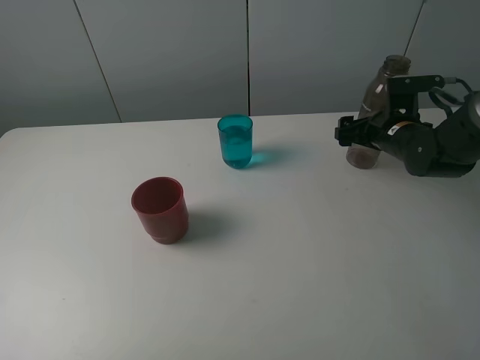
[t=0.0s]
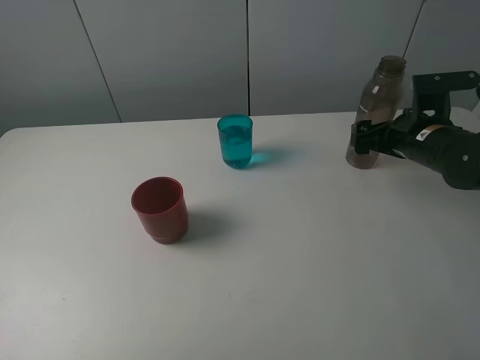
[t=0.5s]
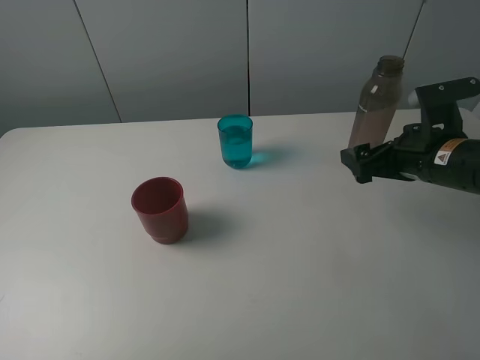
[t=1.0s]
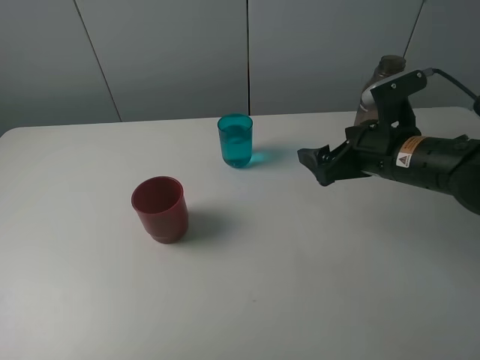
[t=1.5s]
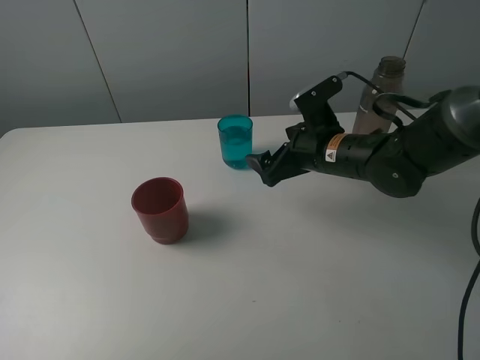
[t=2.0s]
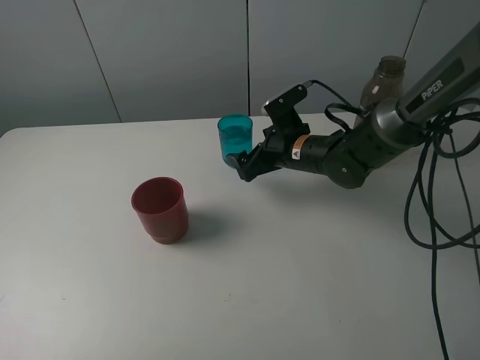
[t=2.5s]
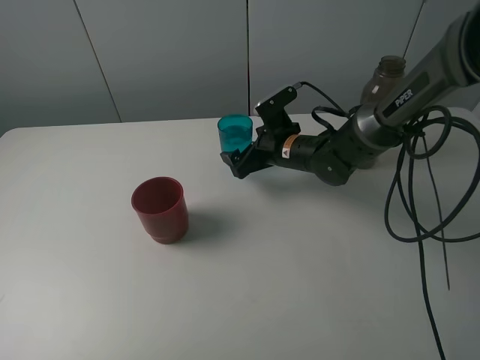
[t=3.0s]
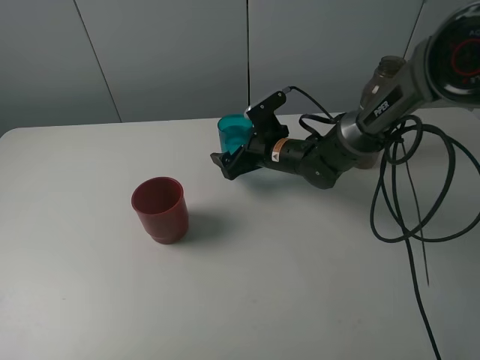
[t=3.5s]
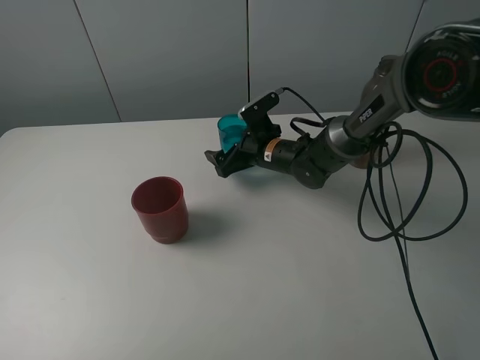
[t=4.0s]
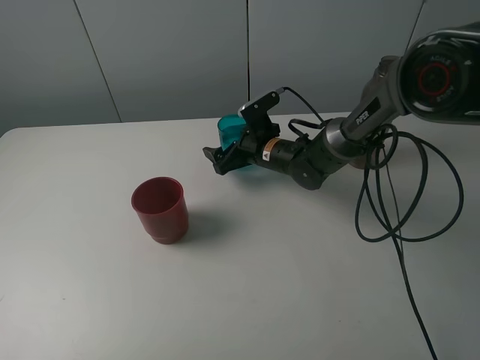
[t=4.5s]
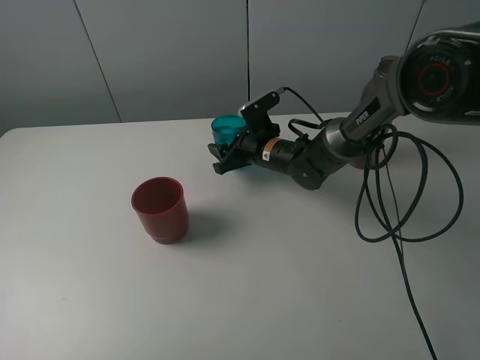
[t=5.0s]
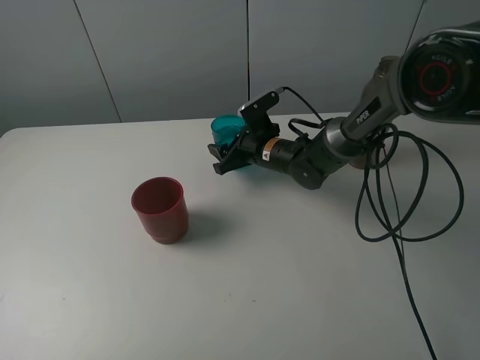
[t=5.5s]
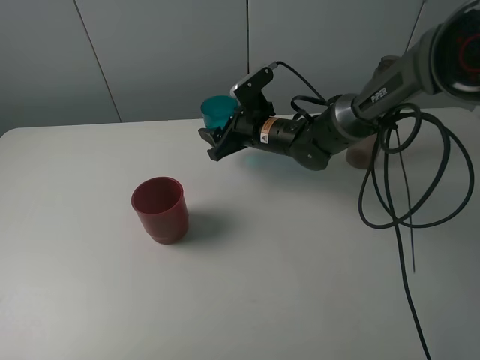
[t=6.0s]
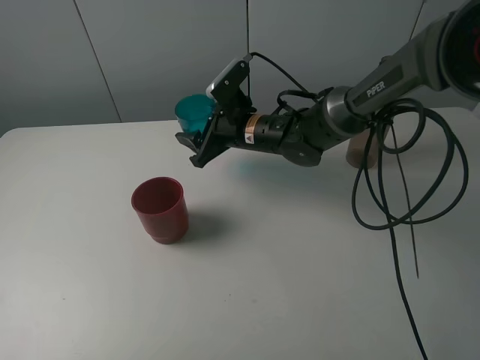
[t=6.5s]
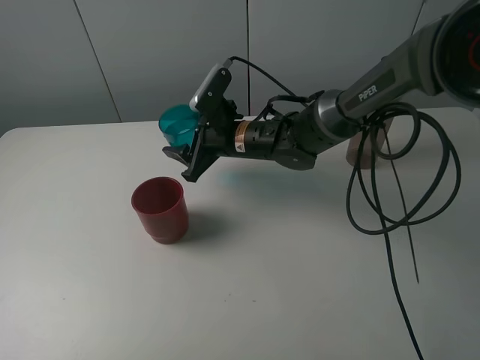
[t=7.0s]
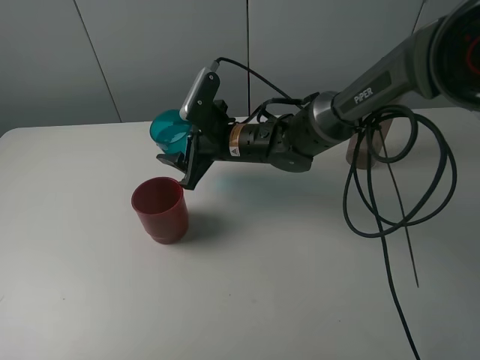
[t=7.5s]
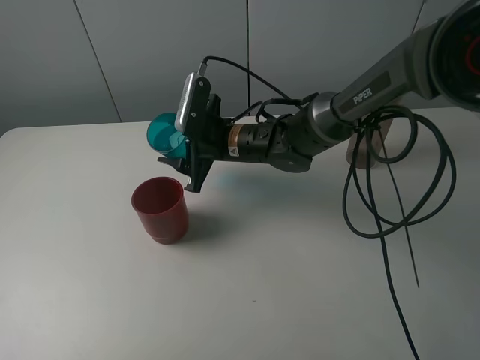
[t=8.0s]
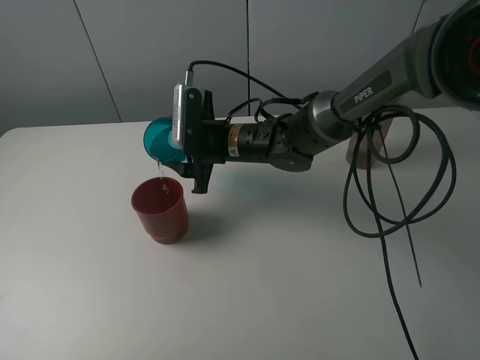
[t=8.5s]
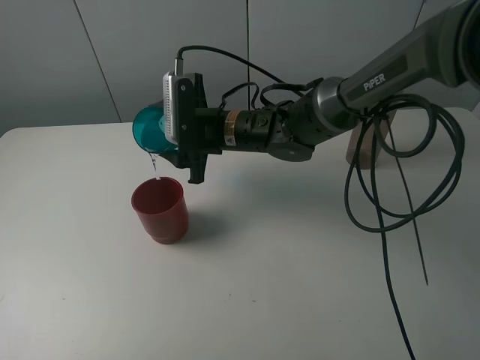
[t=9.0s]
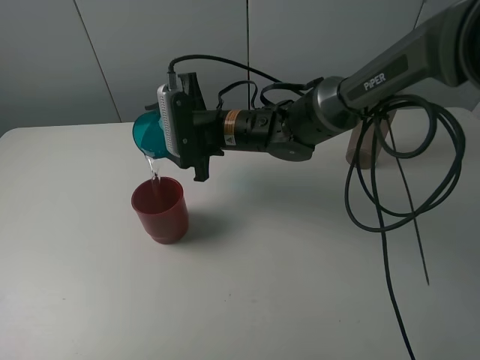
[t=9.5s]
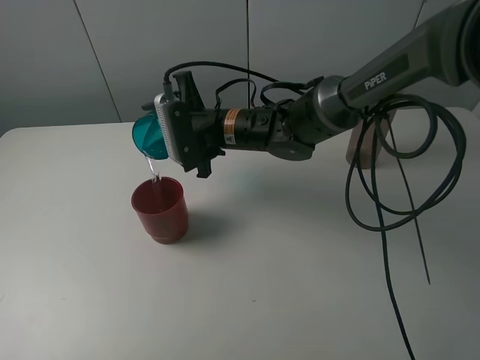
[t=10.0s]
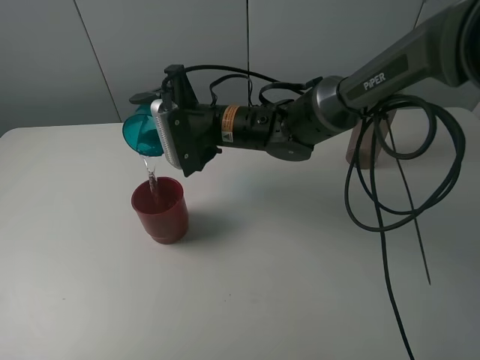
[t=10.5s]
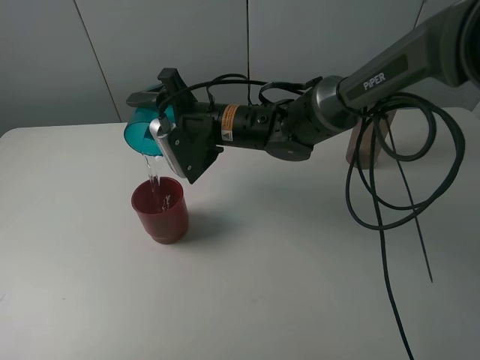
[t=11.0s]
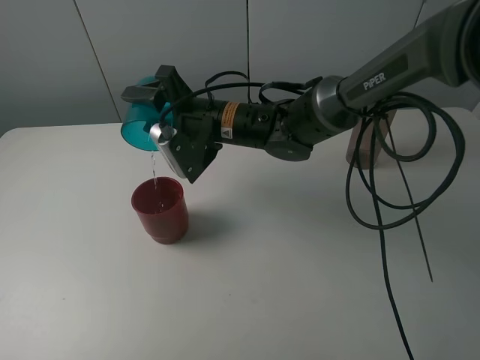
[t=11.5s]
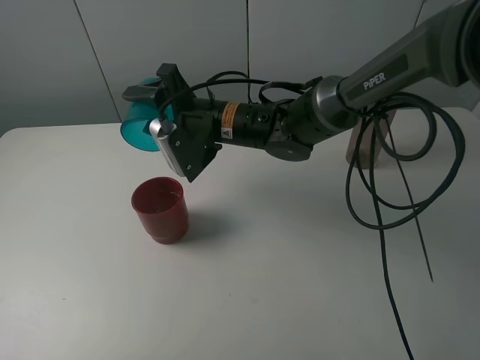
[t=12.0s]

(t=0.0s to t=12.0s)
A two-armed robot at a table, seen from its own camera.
Task of the whole recording: pick up the bottle and pour water into the cup, then pick up the cup containing water and pour it into another cup.
Step, t=0.5s - t=5.0s: Grasp the blue cup with the right gripper.
Step, t=5.5s - t=12.0s: Pour water from blue cup to red cup with the right gripper.
t=0.0s - t=2.0s: The right gripper travels to the left and backward by roughly 15 cm.
t=2.0s - t=4.0s: The right gripper moves forward, downward and to the left, about 15 cm.
t=4.0s - t=6.0s: The right gripper ends up about 5 cm from where it was, and closes up.
t=6.0s - t=8.0s: The right gripper goes approximately 5 cm to the left.

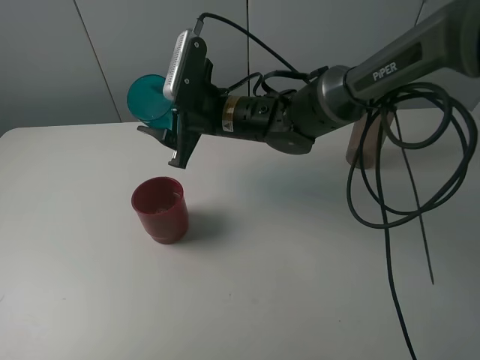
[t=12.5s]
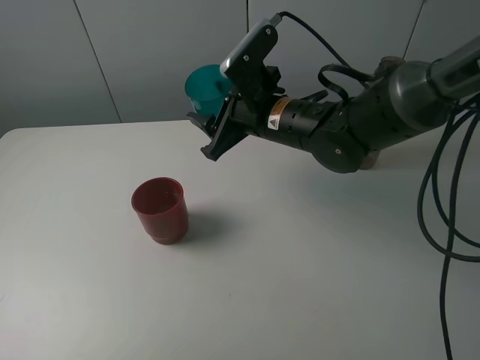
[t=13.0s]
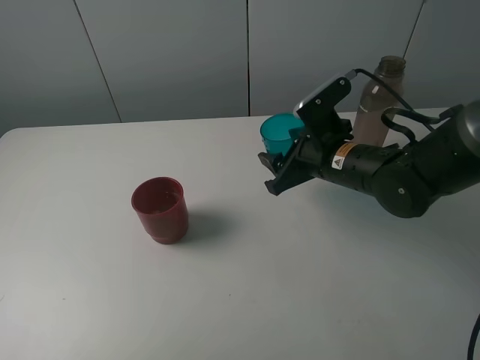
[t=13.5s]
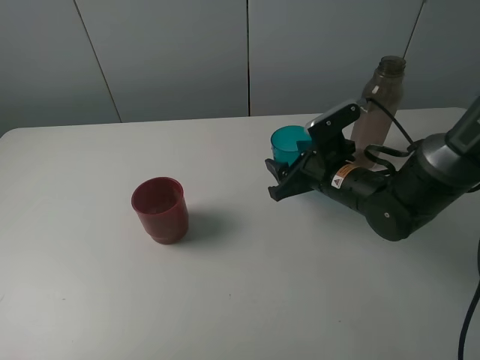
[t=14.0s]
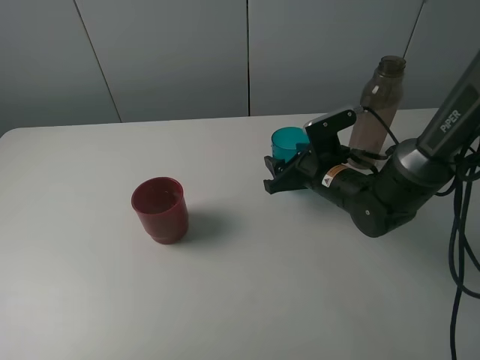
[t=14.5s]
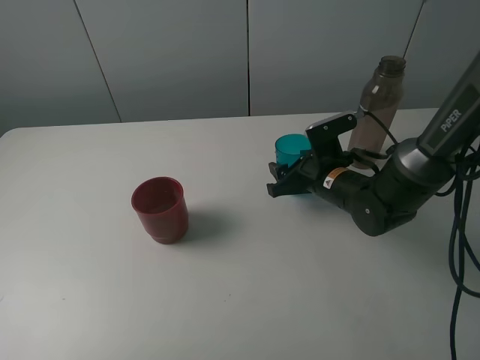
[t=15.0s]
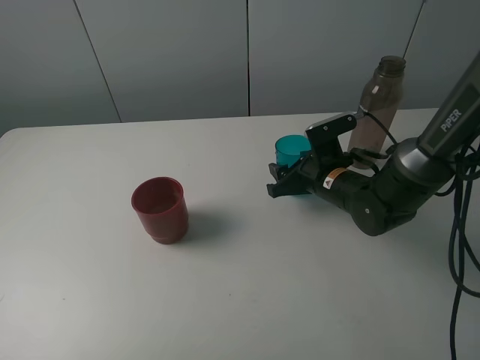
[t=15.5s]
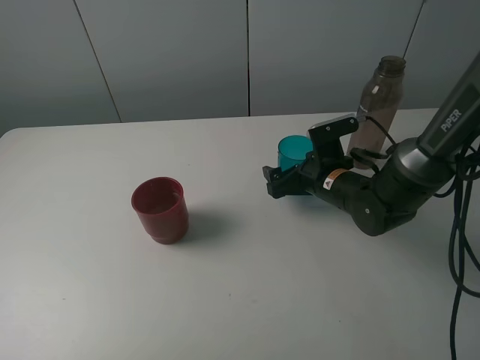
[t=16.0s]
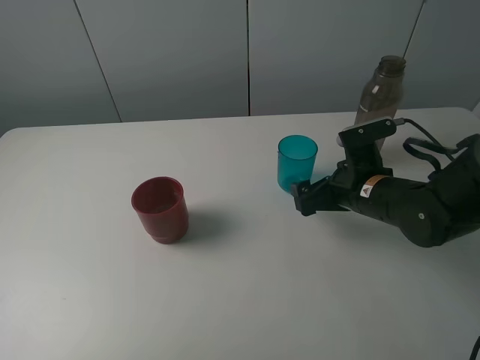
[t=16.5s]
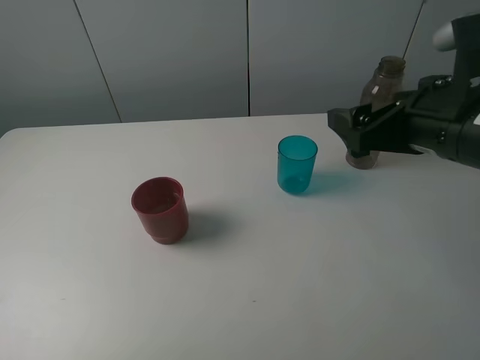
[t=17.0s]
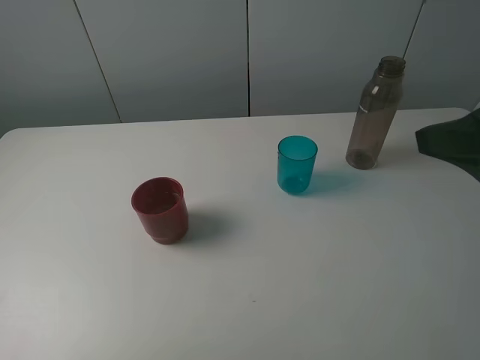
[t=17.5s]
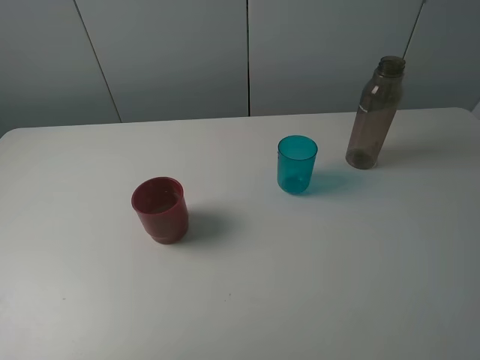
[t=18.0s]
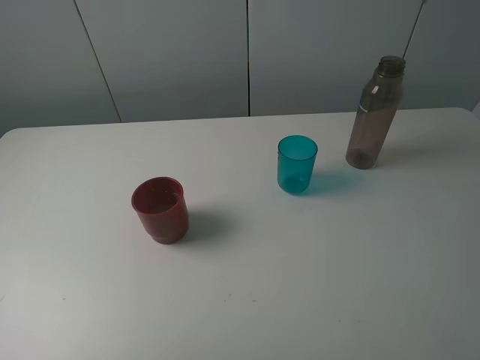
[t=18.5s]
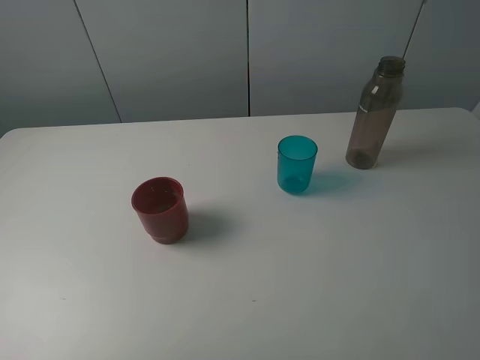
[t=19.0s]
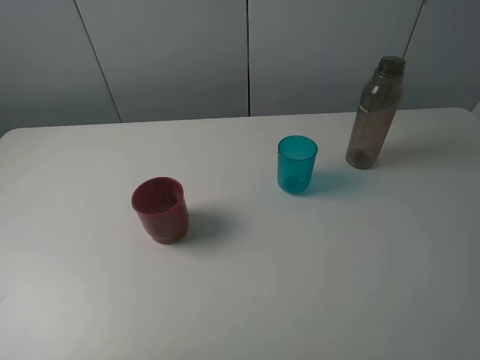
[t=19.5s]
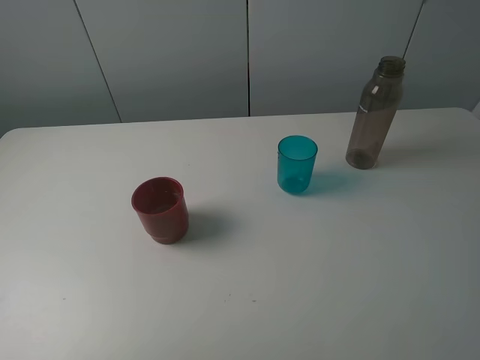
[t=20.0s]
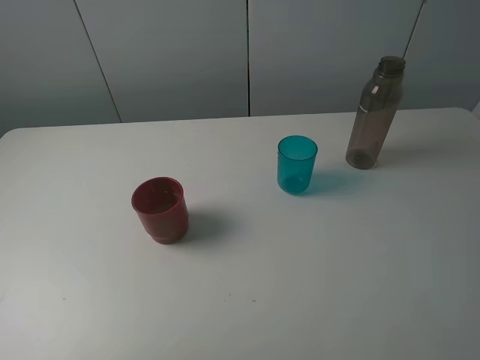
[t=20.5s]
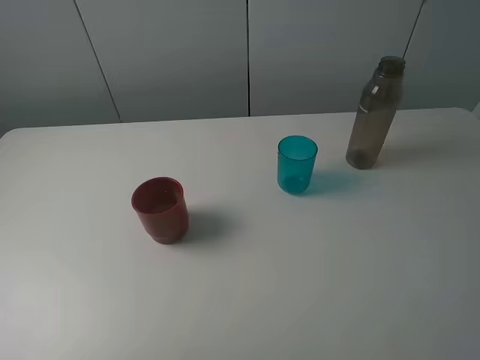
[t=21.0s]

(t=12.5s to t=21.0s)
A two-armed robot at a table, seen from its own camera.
Task of the whole recording: pick up the bottle and pour water into the cup, then pick up the cup containing water and pour it into another cup.
Step, t=12.5s - t=15.5s: Place the blue cup with the right gripper.
t=12.5s - t=14.5s: The right gripper goes roughly 20 cm to the right and downward.
t=14.5s - t=16.5s: The right gripper moves backward, some 5 cm, and opens up.
t=16.5s - t=19.0s: The right gripper heads backward, upward and to the right, covering roughly 35 cm.

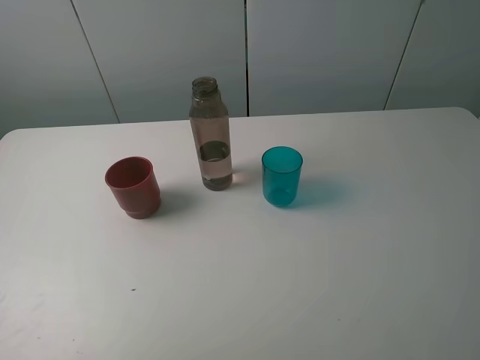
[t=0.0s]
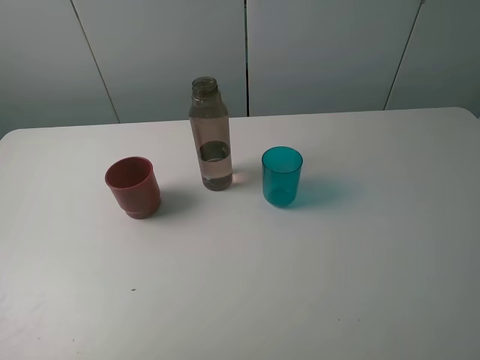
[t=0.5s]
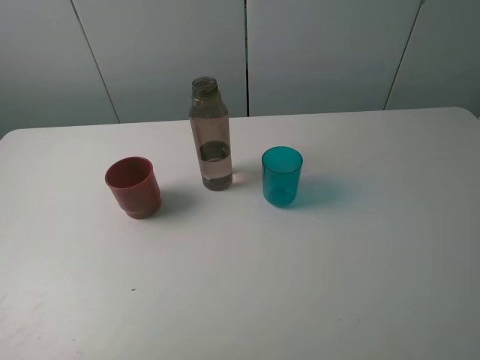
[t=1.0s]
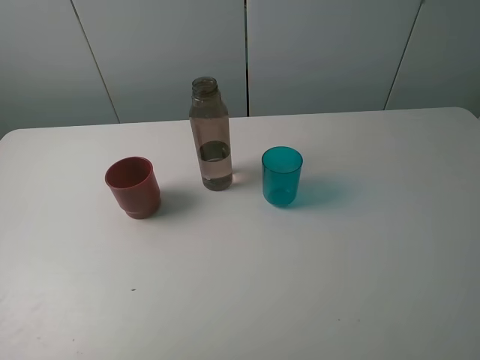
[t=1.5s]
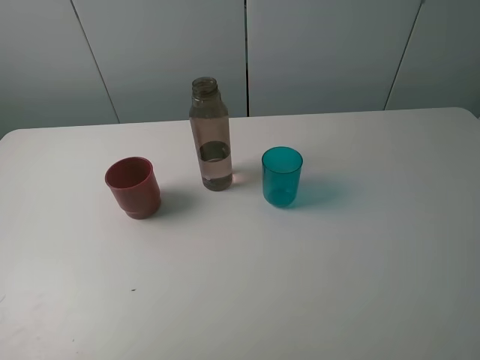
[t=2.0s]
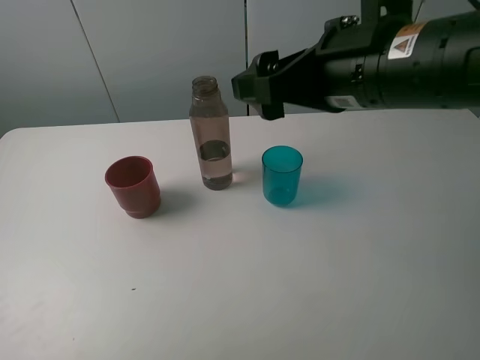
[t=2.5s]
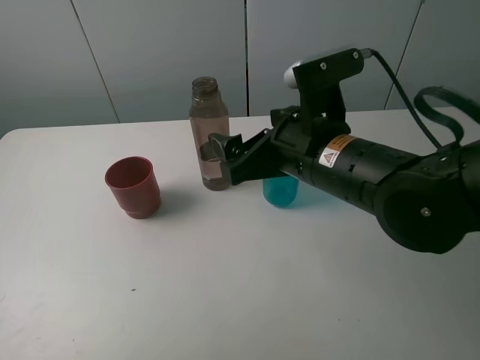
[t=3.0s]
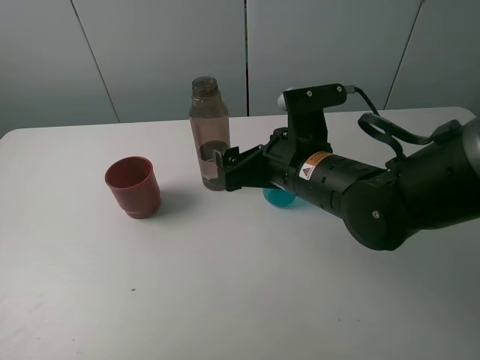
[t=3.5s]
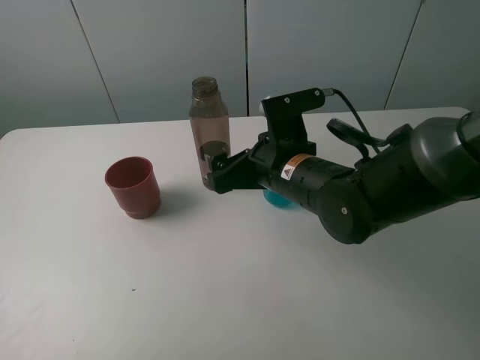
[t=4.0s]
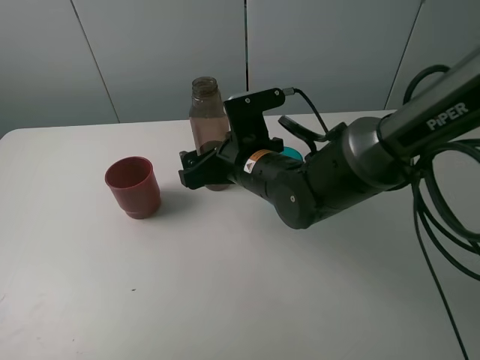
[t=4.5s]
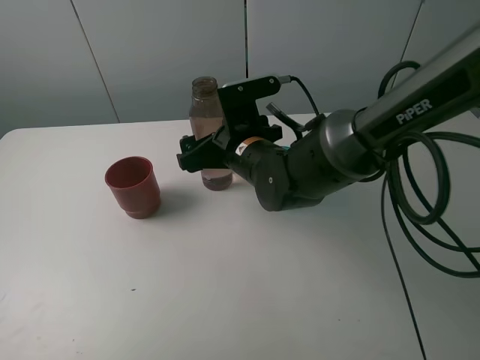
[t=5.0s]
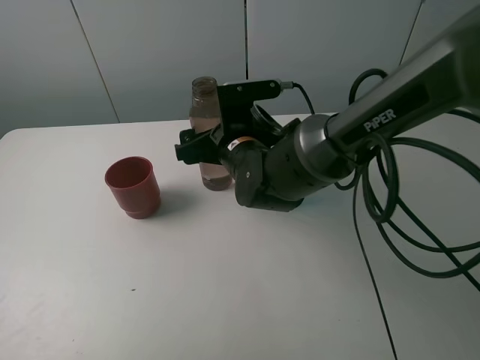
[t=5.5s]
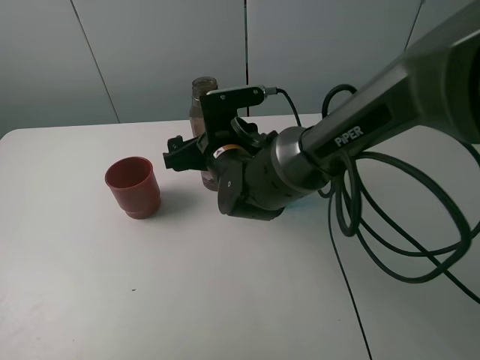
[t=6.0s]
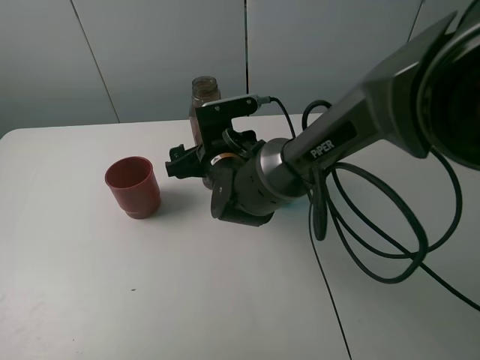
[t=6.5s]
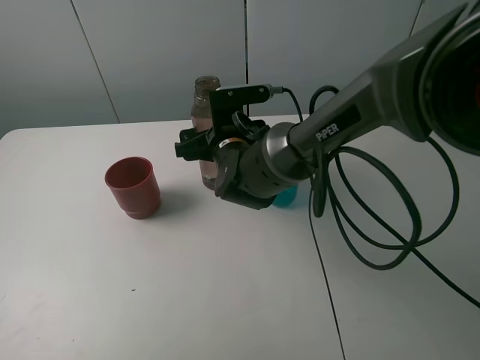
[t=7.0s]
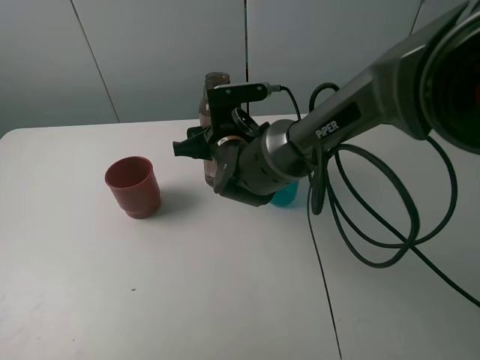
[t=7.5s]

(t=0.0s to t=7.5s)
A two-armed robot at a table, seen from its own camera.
Task of the whole recording: pick up the bottle and pour water into the cup, then pick up the cup containing water and pour it into another cup.
t=2.0s - t=4.0s: The right gripper heads to the left, downward and forward, covering some 30 cm.
t=4.0s - t=5.5s: The right gripper goes approximately 10 cm to the left and forward.
t=5.5s - t=7.5s: The right gripper closes.
